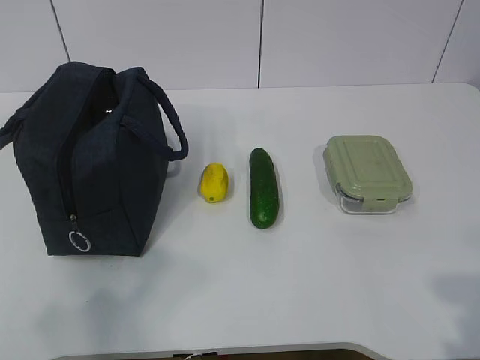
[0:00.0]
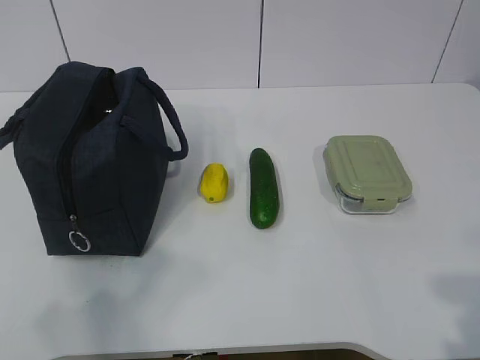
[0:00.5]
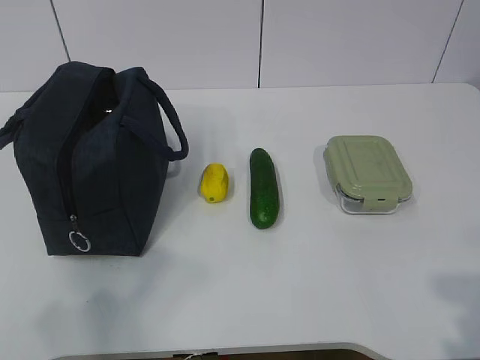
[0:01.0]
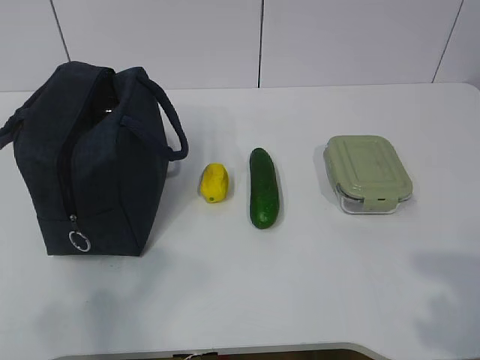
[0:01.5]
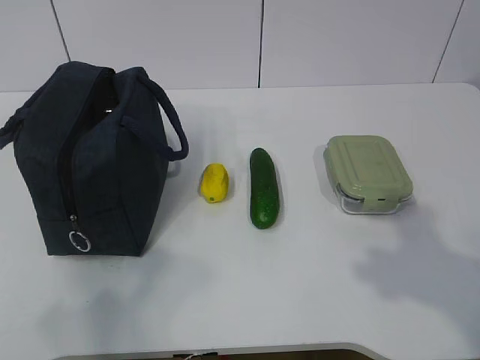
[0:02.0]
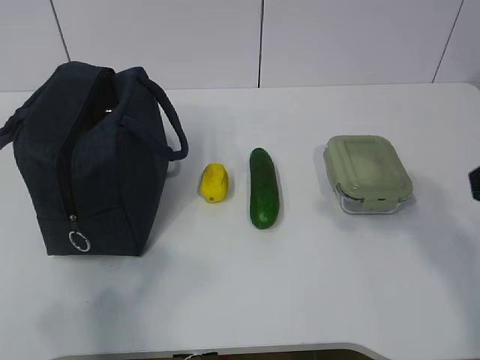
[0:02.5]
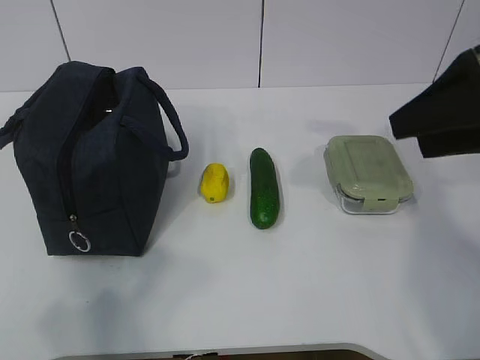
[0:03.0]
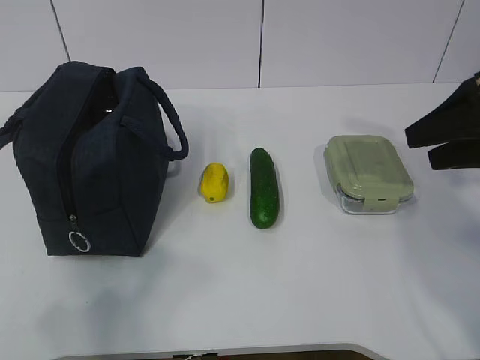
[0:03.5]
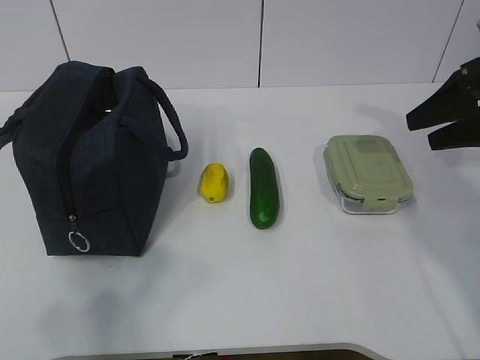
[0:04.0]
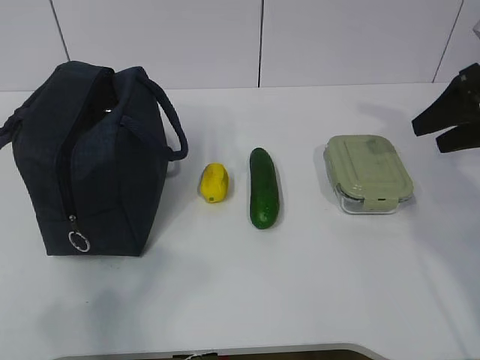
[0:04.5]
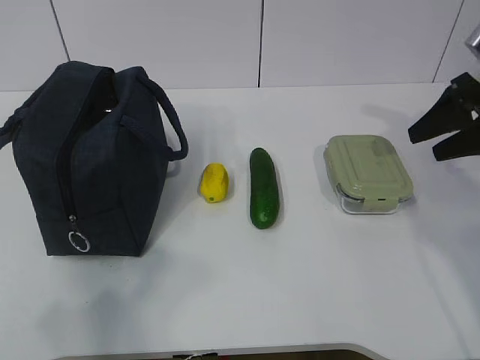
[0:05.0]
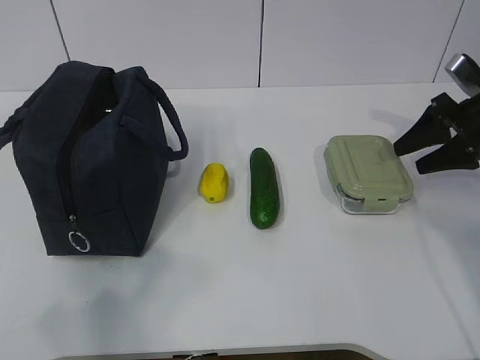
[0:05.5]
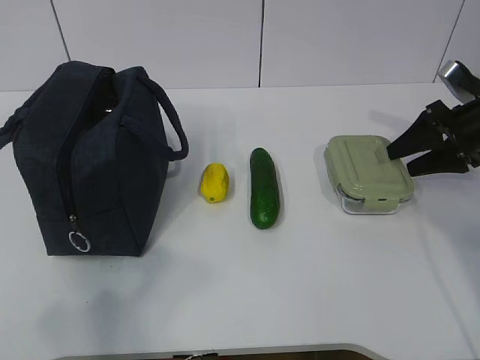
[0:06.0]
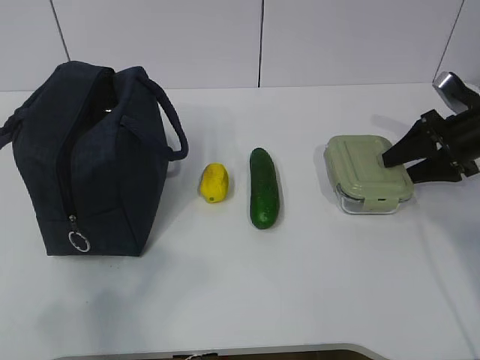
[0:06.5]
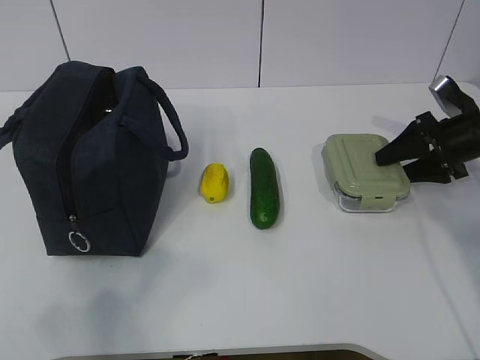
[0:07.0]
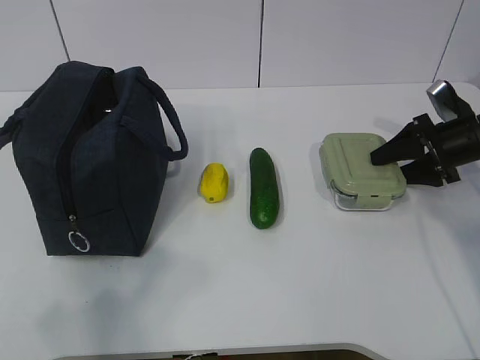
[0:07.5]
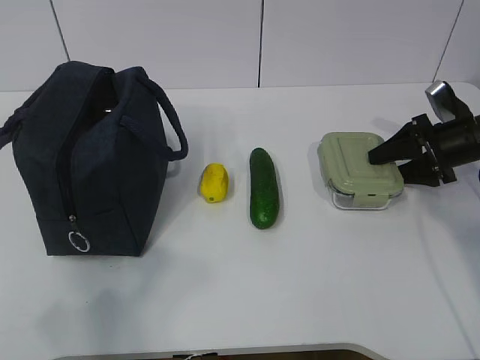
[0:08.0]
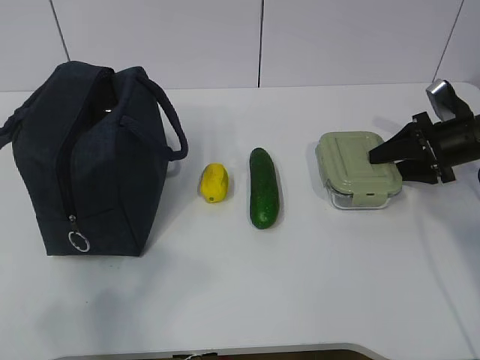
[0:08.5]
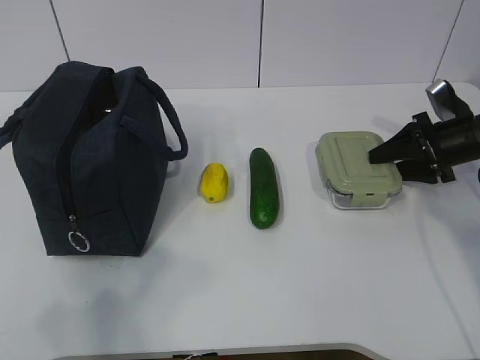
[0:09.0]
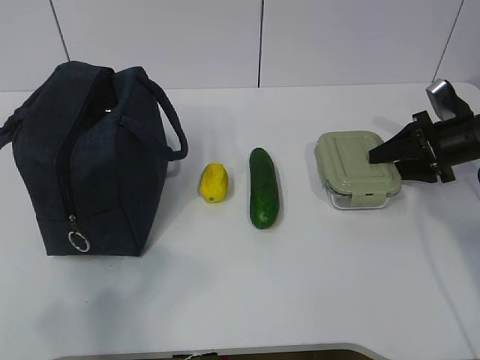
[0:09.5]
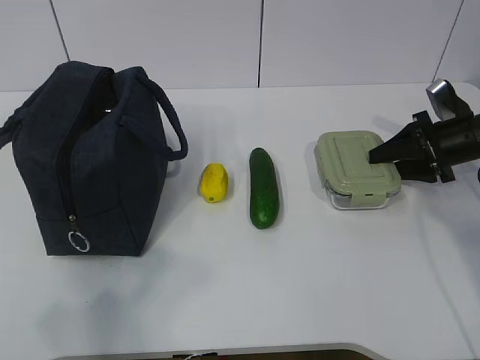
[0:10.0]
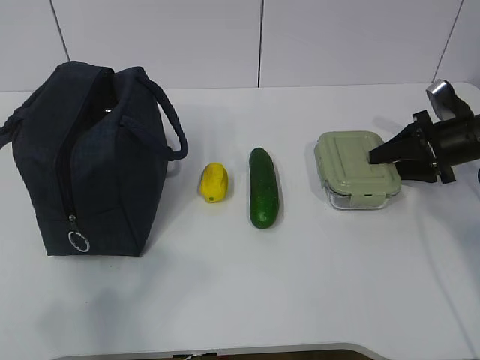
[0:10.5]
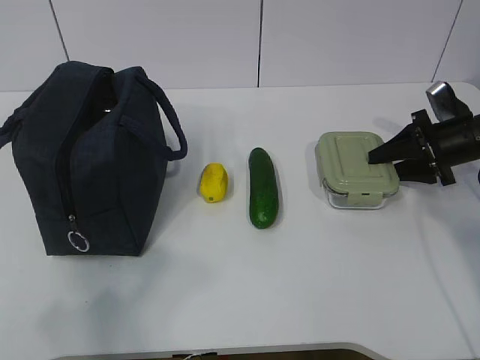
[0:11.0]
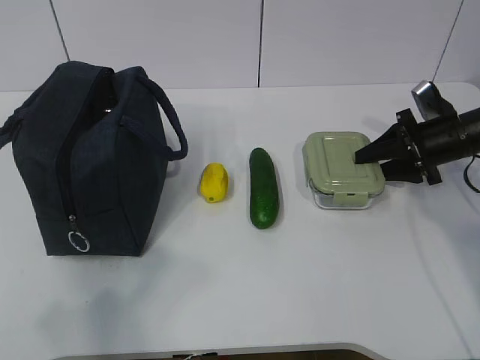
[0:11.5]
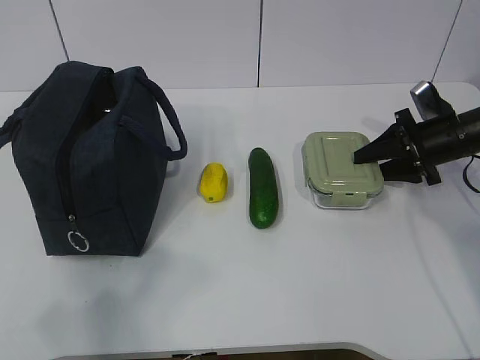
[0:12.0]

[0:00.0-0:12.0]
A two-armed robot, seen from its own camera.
Step, 0:00.0 to 0:10.5: Grab the lunch box with your right hand.
0:02.0 to 0:04.0: The right gripper travels forward by approximately 30 cm.
0:04.0 to 0:06.0: The right gripper is displaced downward and forward by about 10 cm.
0:06.0 to 0:08.0: The grippers move only a little.
0:08.0 to 0:10.0: The two grippers keep their place.
0:10.0 to 0:12.0: There are only small adjustments of the grippers.

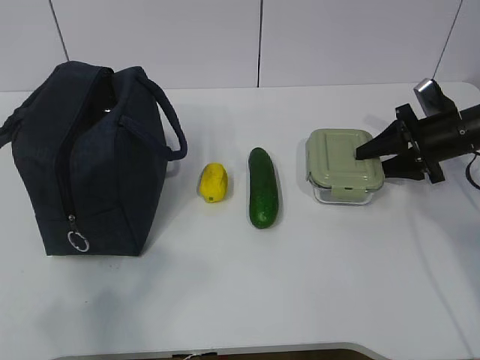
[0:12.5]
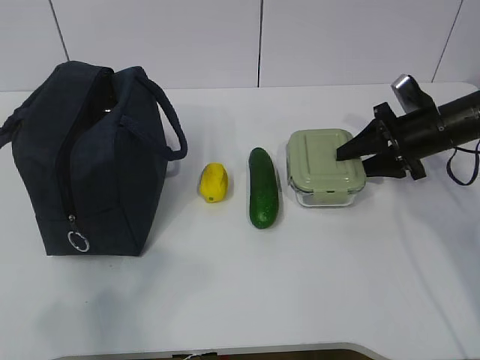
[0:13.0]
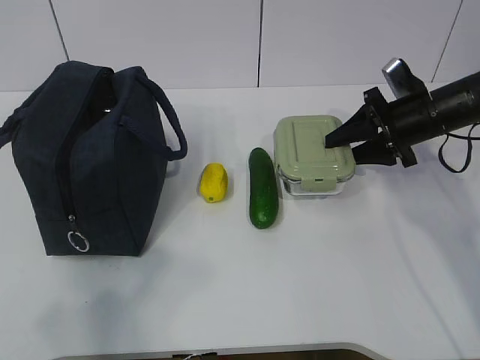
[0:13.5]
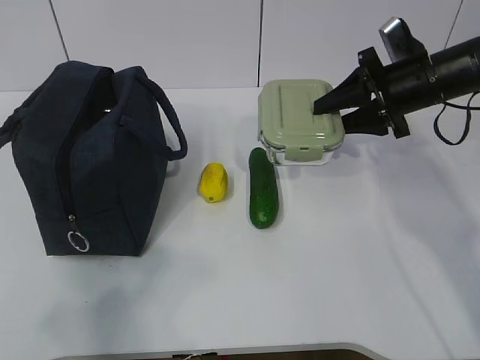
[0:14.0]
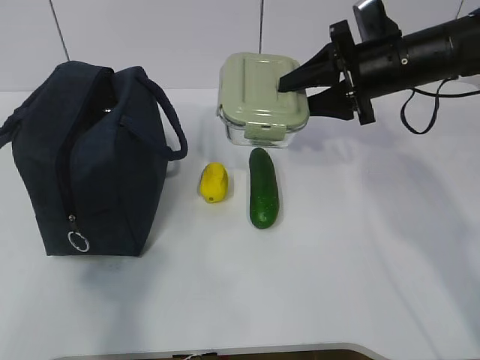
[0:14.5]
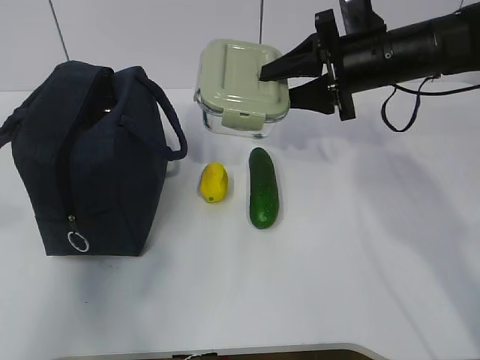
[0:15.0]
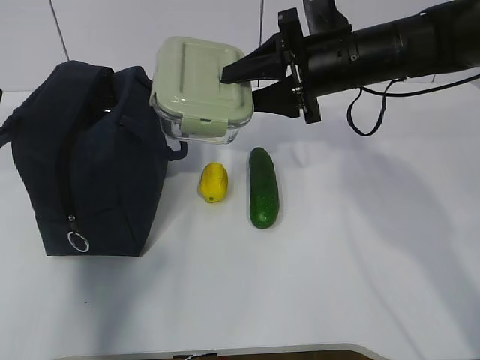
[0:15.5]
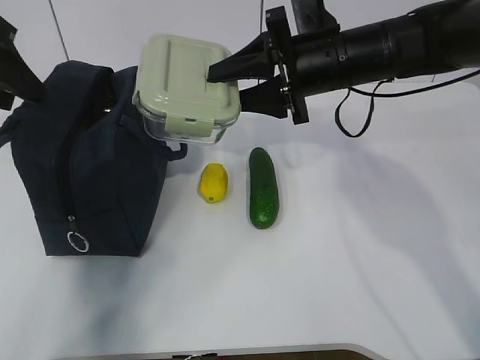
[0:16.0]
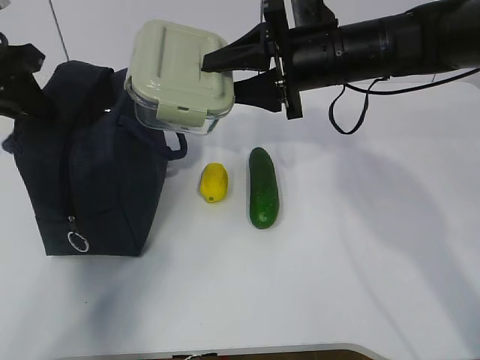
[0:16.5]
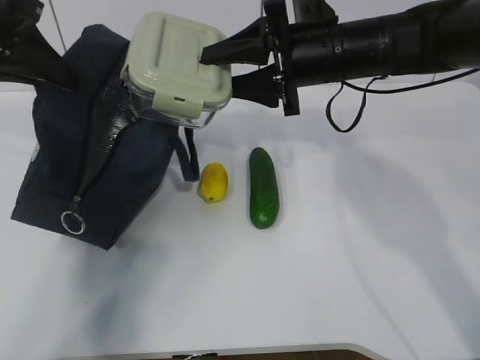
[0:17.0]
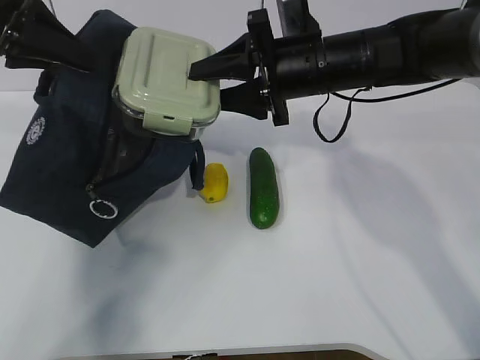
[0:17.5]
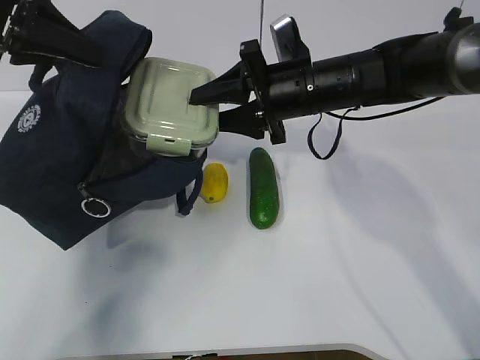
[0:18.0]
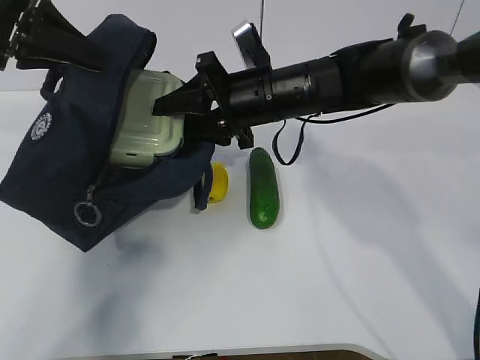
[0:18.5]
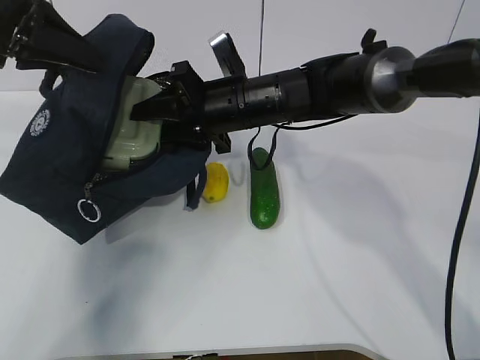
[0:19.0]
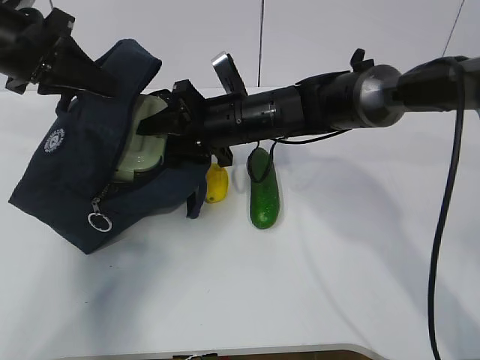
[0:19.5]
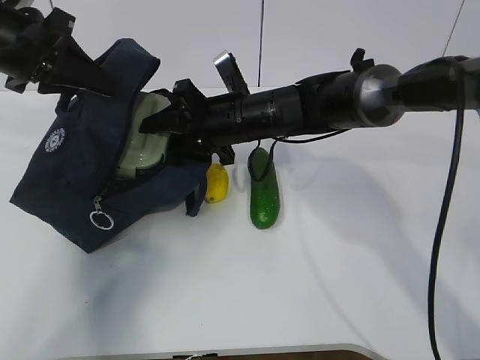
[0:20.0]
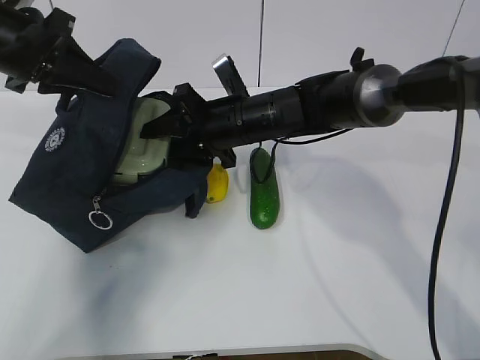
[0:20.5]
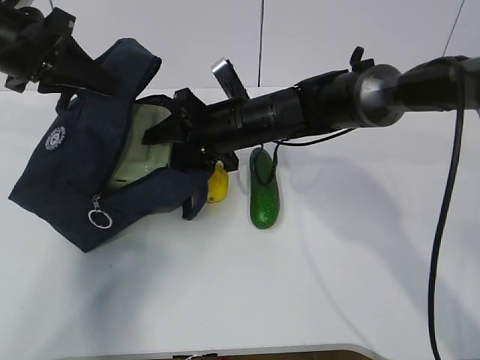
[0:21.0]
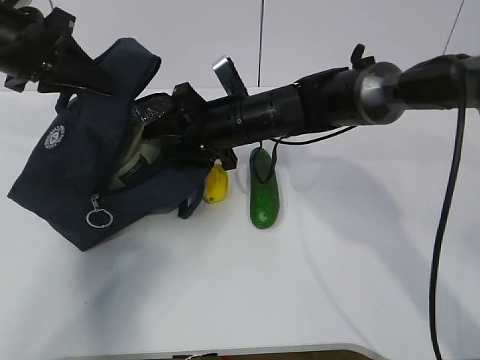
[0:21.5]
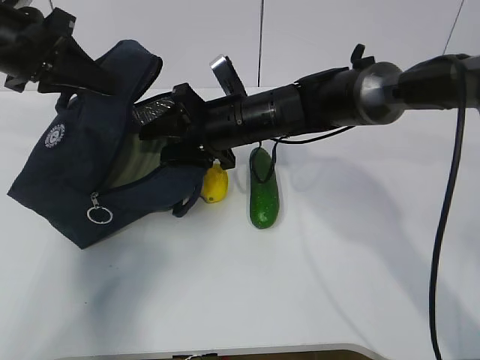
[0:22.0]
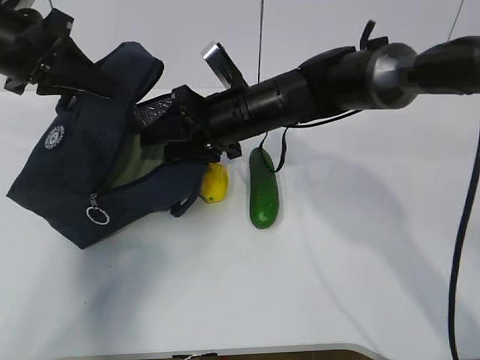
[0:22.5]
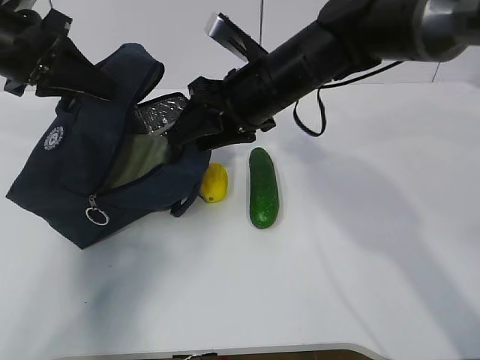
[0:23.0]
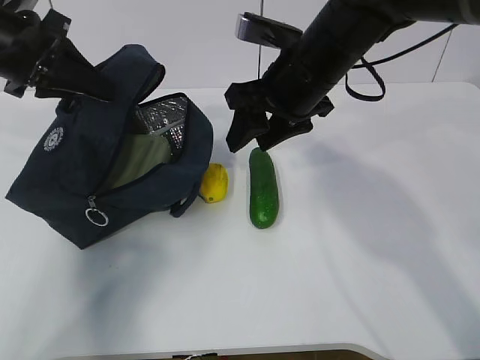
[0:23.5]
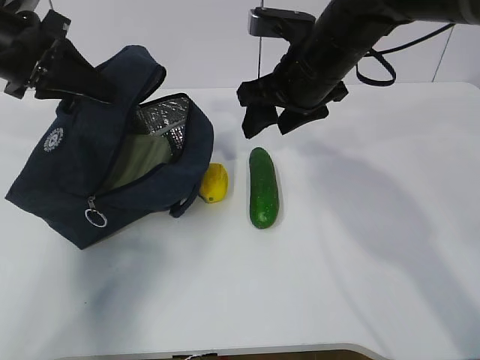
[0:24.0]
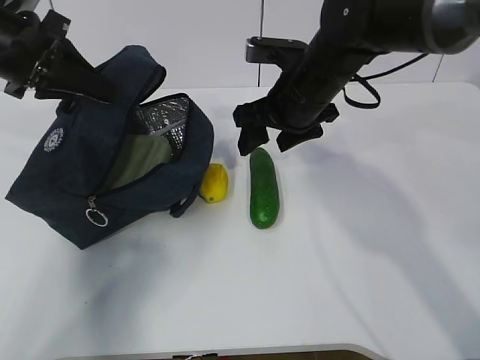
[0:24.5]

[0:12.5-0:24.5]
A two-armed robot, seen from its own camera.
Step, 0:14.5 to 0:18.0: Place it into the bag with your right hand.
Step, 0:18.5 to 0:23.0: Grab the cucumber with your right hand.
0:12.5 to 0:14.5: The right gripper moves to the left and upward, approximately 15 cm; the left gripper moves about 5 cm.
0:14.5 to 0:16.5: The right gripper heads to the left, covering about 10 cm. The left gripper shifts roughly 30 cm forward.
0:16.5 to 0:18.5: The left gripper ends up some 5 cm from where it was, while the right gripper goes about 5 cm to the left.
0:18.5 to 0:20.5: The right gripper ends up approximately 5 cm from where it was.
0:20.5 to 0:22.5: The grippers move only a little.
0:22.5 to 0:24.5: The right gripper moves to the right, about 5 cm.

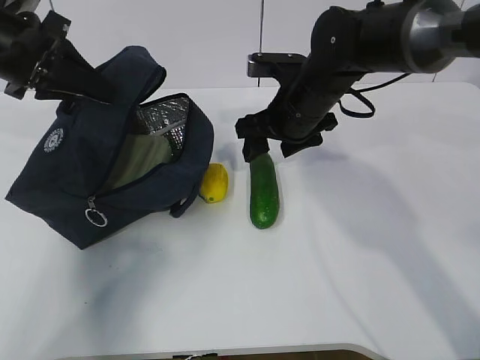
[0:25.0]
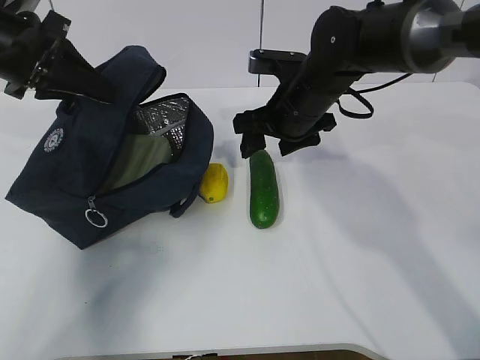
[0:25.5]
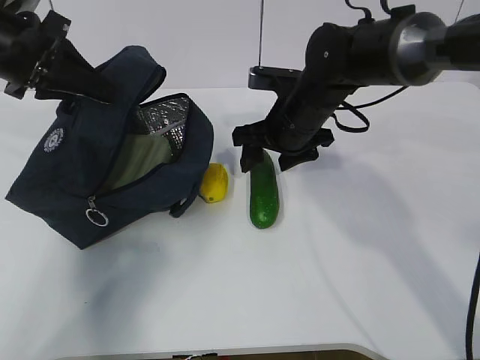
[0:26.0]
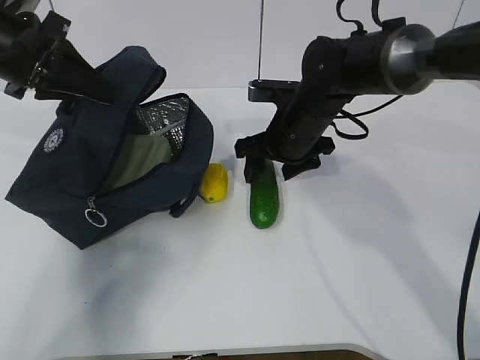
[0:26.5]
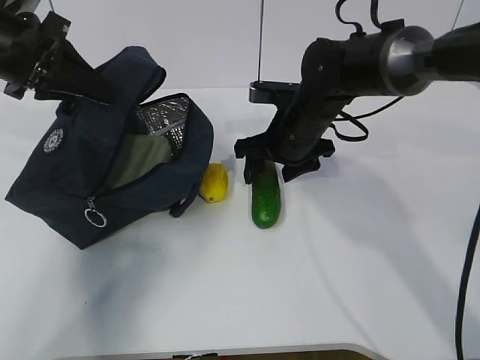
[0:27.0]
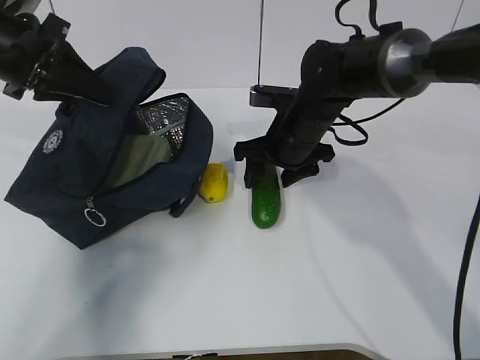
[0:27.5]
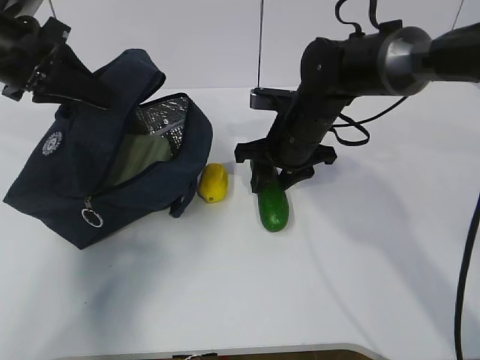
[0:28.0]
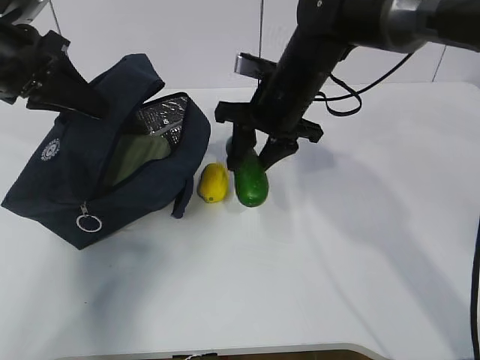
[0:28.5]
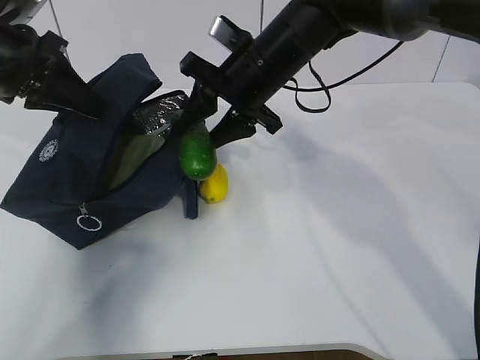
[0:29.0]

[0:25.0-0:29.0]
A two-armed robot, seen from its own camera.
0:25.0 to 0:27.0: There are only small adjustments of the grippers.
0:27.0 to 0:29.0: The right gripper moves upward, some 10 cm, and closes its fingers.
